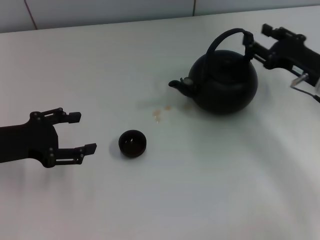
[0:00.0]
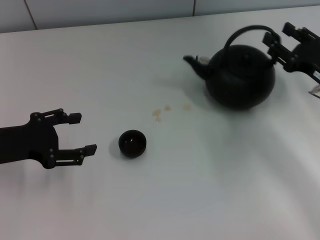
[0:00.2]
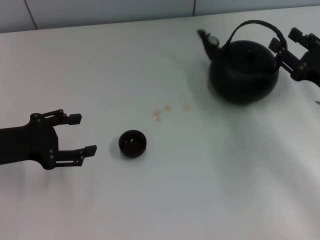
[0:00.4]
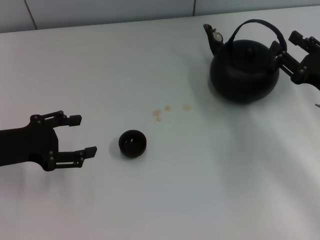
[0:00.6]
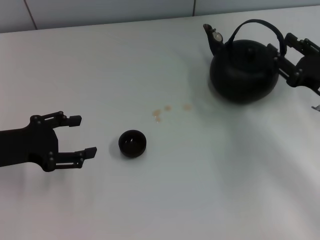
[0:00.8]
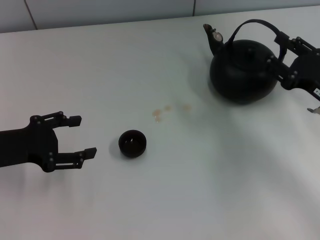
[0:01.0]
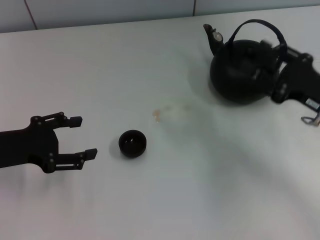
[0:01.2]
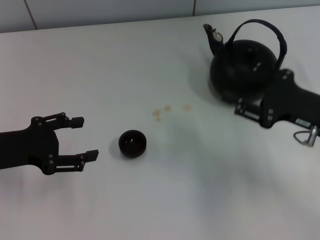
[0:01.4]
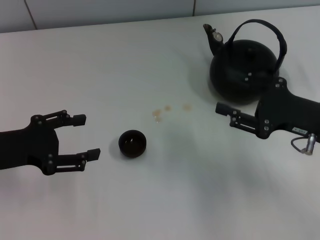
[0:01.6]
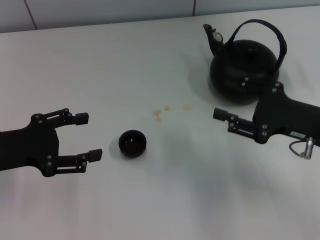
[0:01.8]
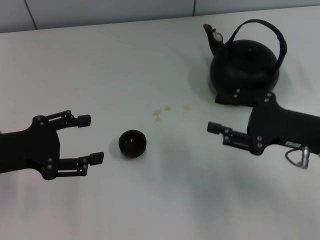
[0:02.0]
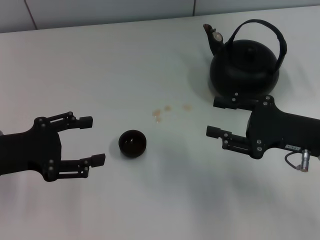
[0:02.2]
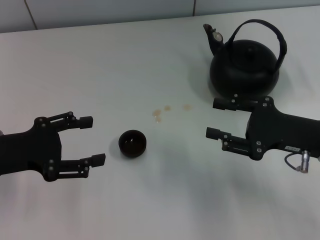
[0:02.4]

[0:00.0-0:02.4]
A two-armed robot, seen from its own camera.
Task of the whole recording: Grasp the handle of the teapot with one hand and pour tea into the teacup.
0:00.0 to 0:01.2: The right gripper is displaced backward by about 5 cm.

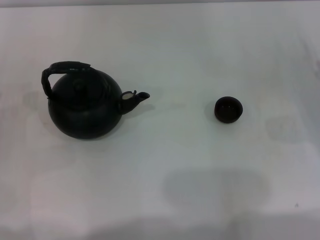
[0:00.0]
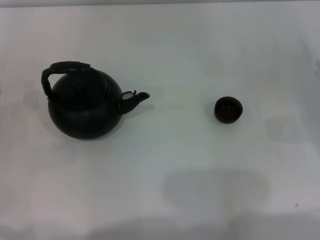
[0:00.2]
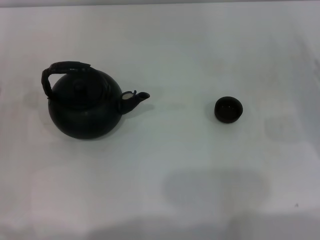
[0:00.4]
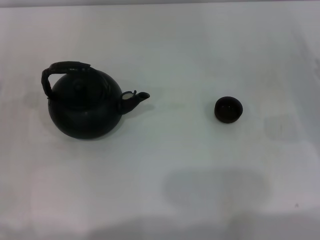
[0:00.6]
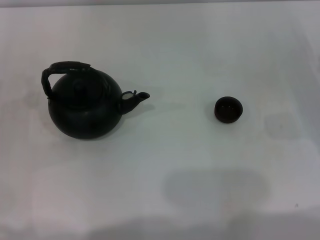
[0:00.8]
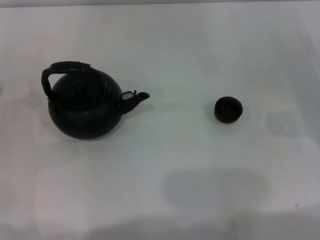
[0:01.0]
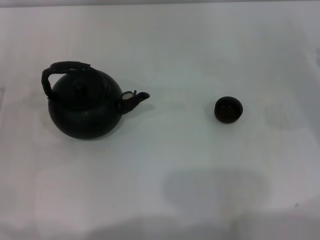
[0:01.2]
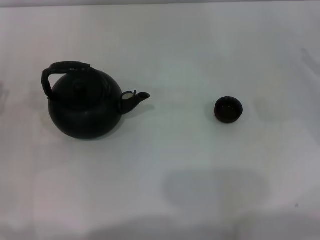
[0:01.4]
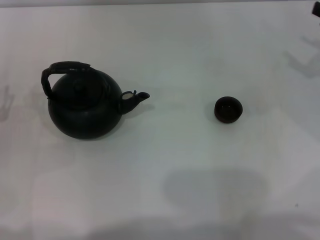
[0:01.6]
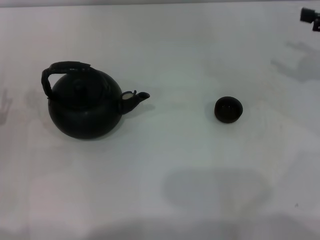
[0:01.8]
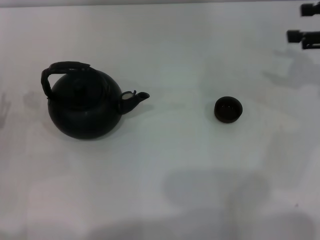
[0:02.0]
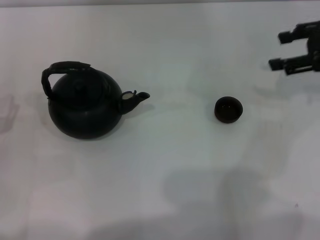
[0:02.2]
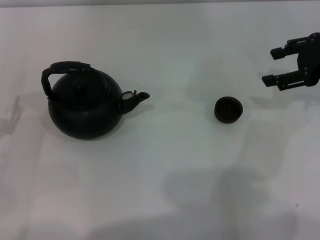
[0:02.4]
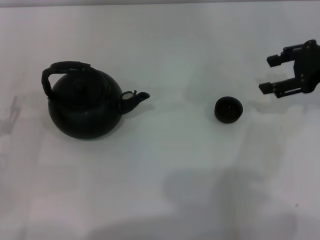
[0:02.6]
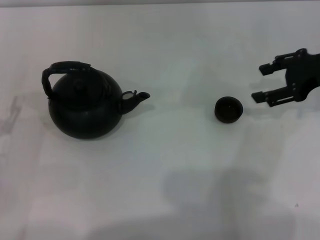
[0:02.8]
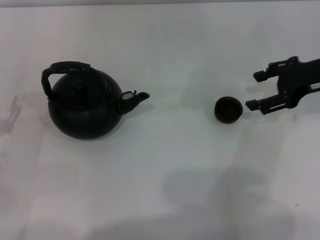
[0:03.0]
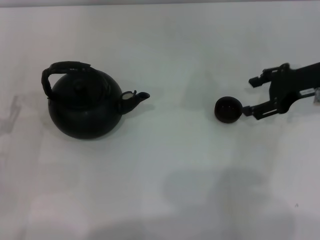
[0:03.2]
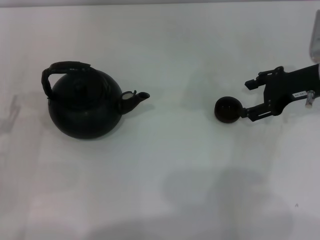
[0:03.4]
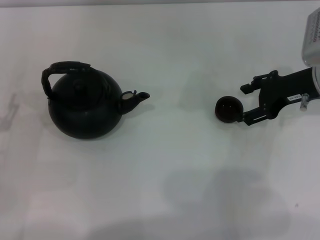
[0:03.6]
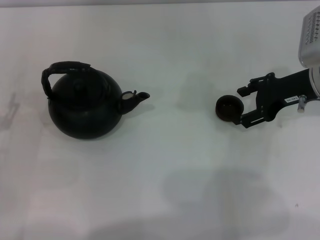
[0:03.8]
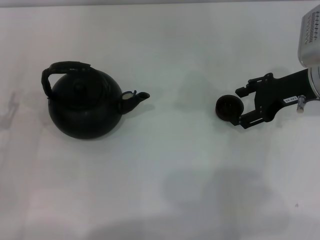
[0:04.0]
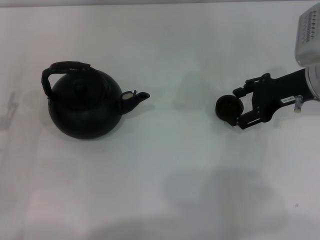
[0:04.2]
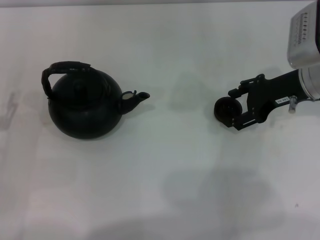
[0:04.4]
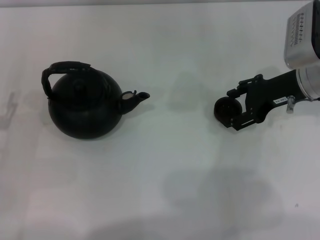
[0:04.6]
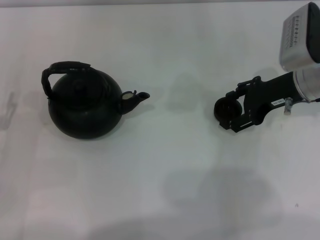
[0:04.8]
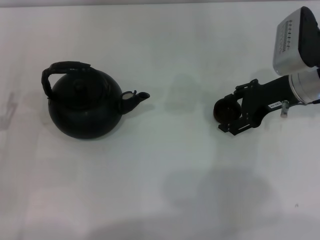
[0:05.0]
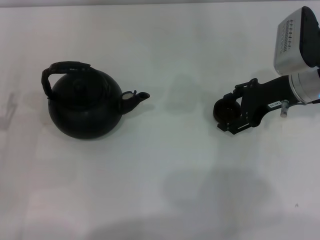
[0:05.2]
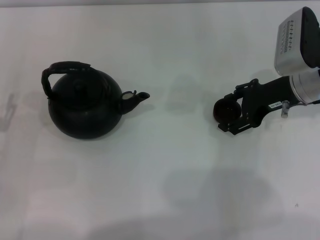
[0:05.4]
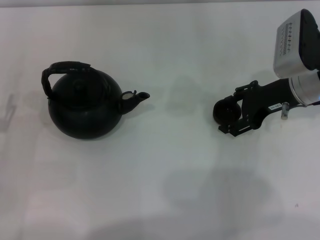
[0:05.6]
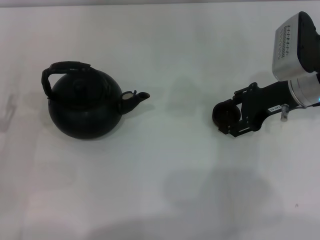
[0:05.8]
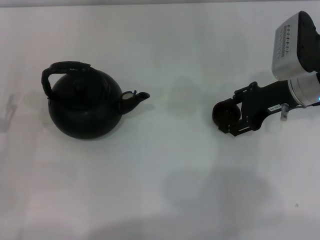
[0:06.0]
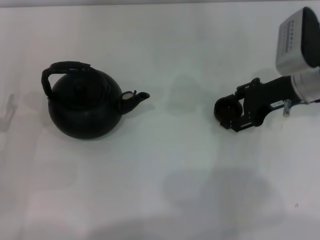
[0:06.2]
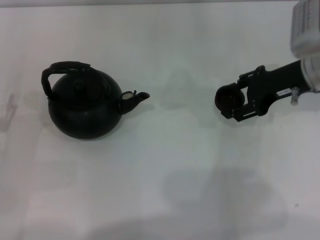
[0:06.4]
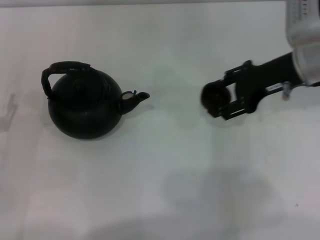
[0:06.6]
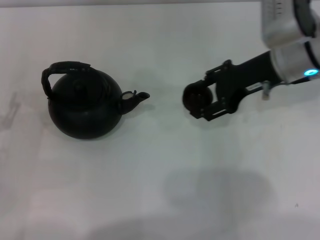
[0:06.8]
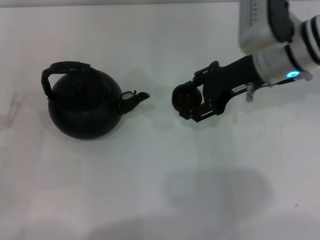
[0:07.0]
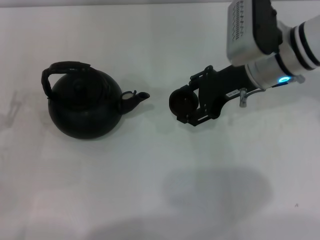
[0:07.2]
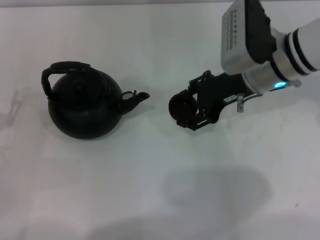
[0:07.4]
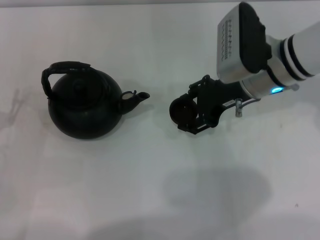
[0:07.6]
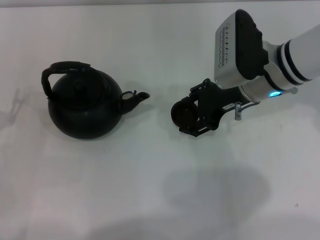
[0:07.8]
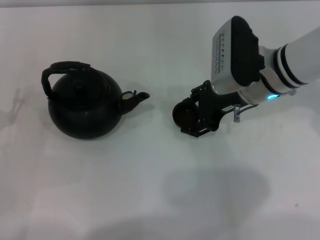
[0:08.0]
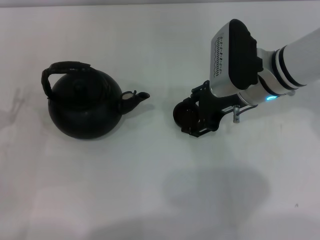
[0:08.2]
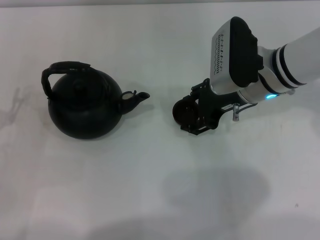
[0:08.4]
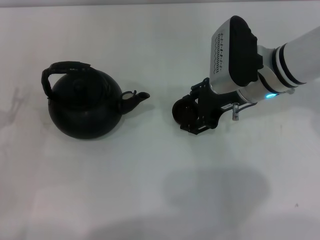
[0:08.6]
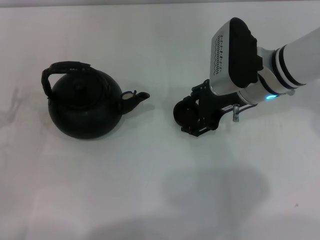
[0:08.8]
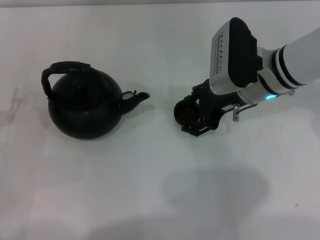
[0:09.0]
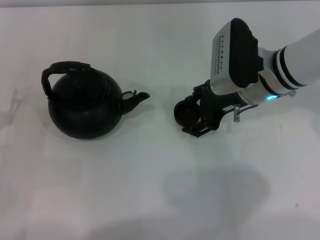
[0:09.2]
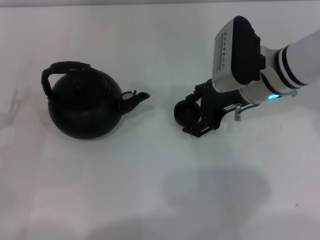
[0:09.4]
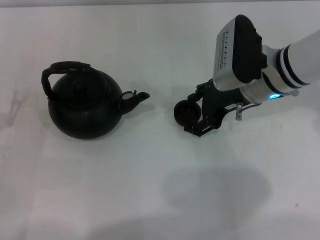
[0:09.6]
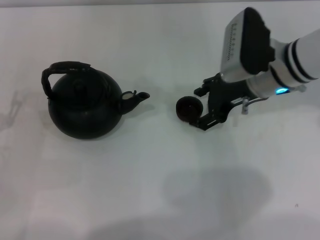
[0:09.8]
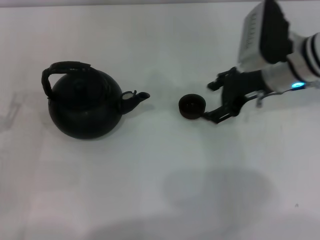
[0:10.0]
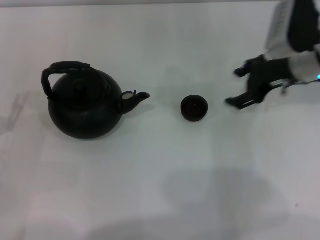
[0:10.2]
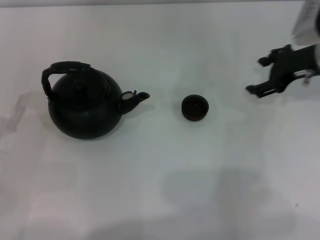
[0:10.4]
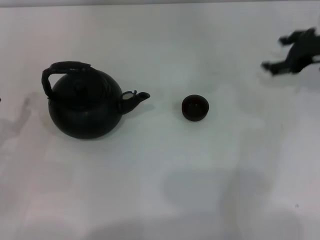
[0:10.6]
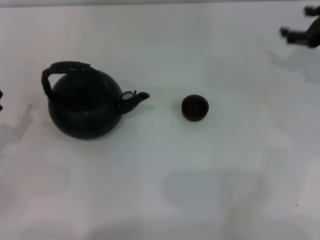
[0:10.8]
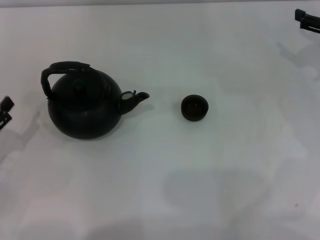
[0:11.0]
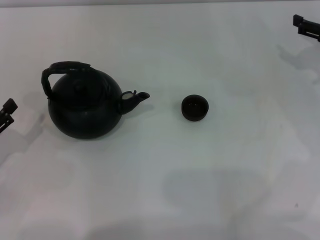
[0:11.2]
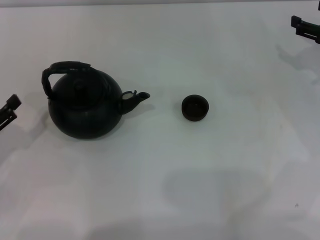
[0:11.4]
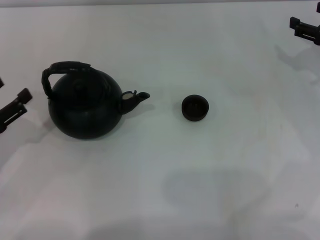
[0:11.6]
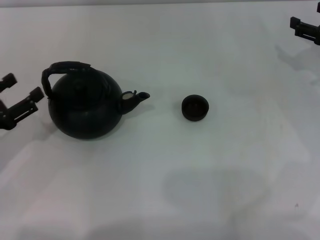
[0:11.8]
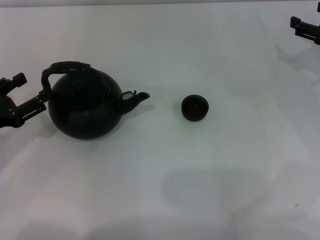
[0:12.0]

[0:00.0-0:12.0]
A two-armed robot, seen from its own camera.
Task of the whole recording: Grasp the handle of the teapot with one hand and pour tea into the teacup.
Step, 0:00.0 to 0:07.2: Pick up the teacup with the right gripper.
Step, 0:07.4 to 0:10.0: Place the teacup in the center of view with the right gripper.
0:01.6 to 0:03.0: The right gripper travels to the left by about 10 cm.
0:03.0 to 0:04.4: The right gripper ends up about 5 cm from where it was.
0:04.4 to 0:06.0: The grippers stay close to where they were, moving slightly.
0:06.0 to 0:07.6: The right gripper travels to the left by some 10 cm.
0:07.6 to 0:09.0: The grippers move only a little.
0:09.0 to 0:10.4: The right gripper moves to the right, about 10 cm.
0:10.4 to 0:12.0: The right gripper travels to the right by some 10 cm; the left gripper ends up approximately 5 cm from where it was.

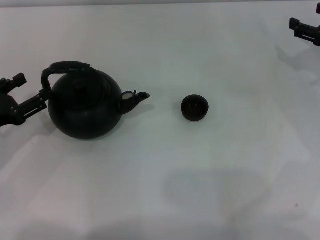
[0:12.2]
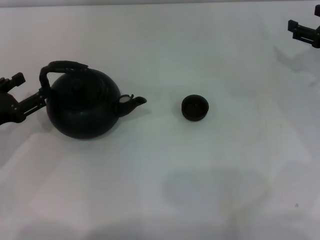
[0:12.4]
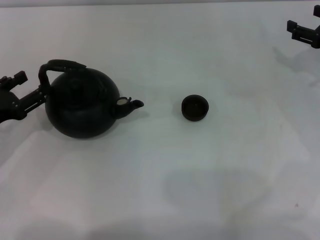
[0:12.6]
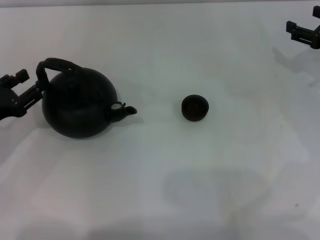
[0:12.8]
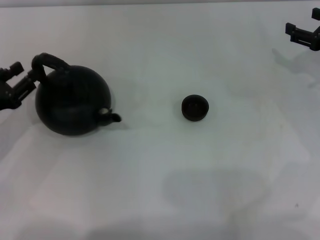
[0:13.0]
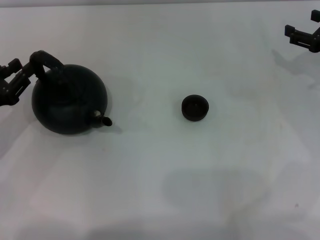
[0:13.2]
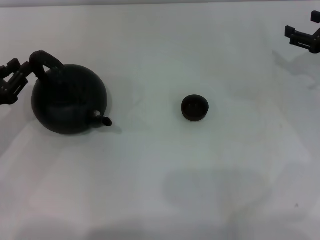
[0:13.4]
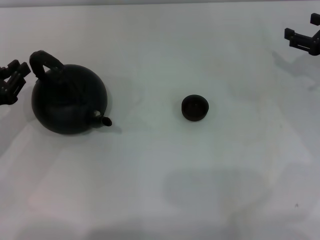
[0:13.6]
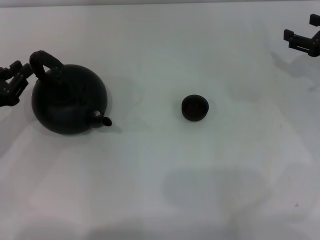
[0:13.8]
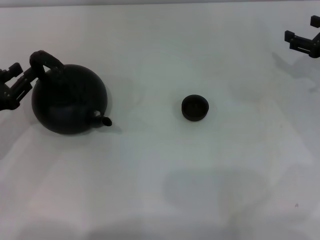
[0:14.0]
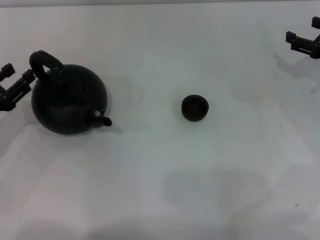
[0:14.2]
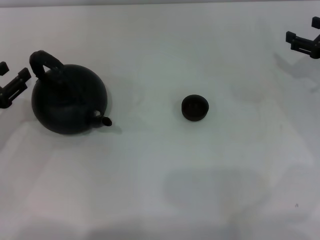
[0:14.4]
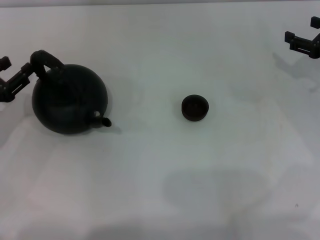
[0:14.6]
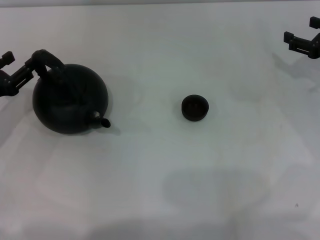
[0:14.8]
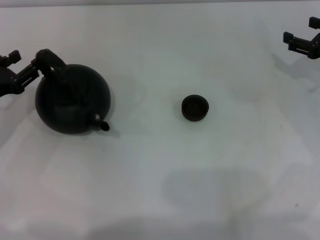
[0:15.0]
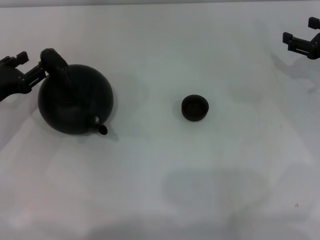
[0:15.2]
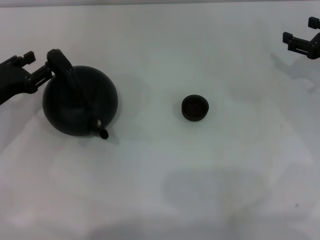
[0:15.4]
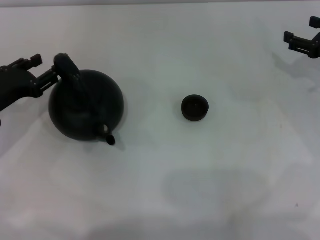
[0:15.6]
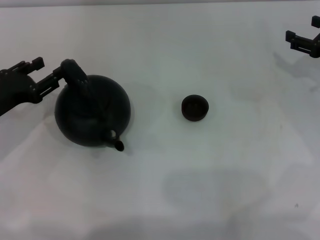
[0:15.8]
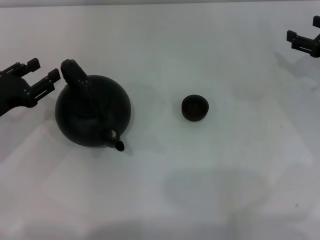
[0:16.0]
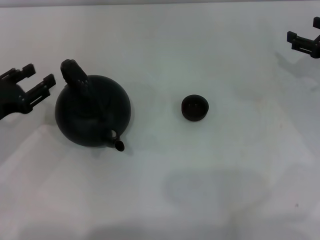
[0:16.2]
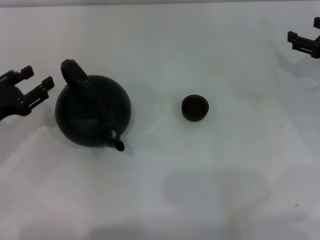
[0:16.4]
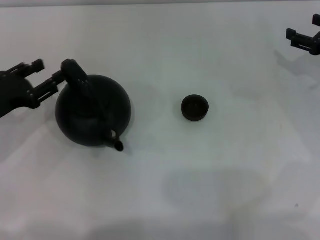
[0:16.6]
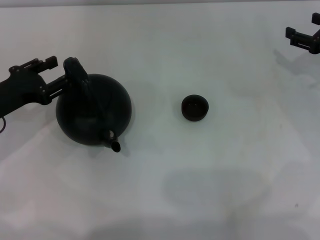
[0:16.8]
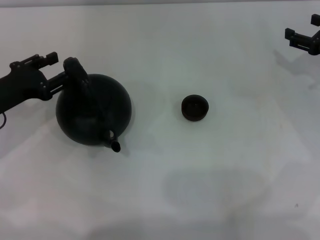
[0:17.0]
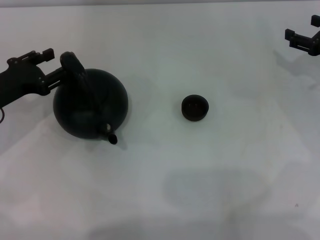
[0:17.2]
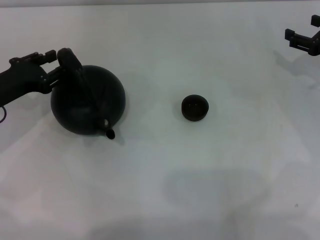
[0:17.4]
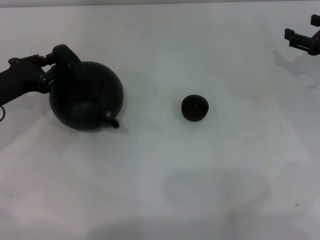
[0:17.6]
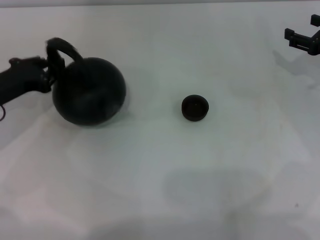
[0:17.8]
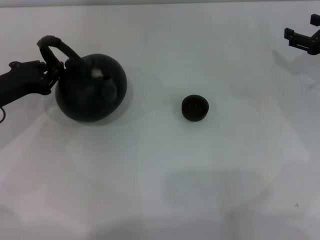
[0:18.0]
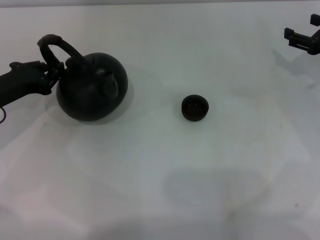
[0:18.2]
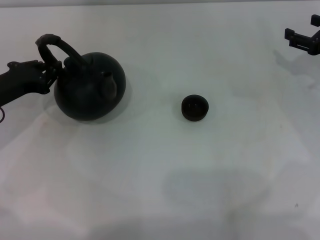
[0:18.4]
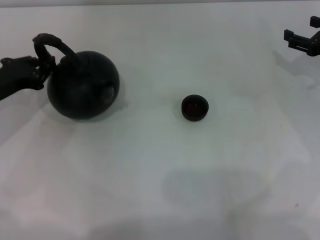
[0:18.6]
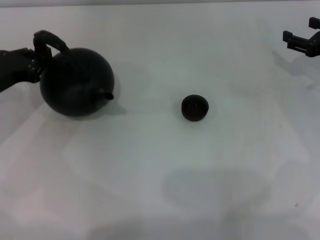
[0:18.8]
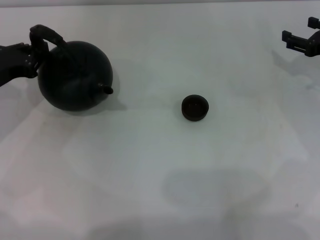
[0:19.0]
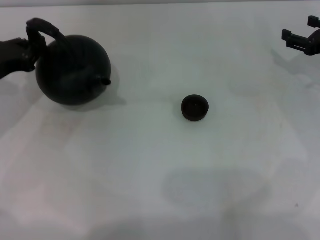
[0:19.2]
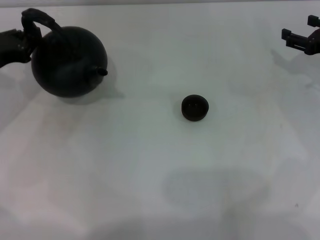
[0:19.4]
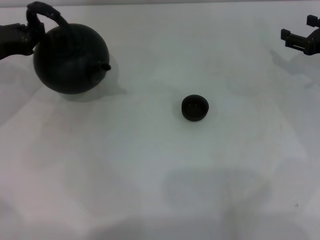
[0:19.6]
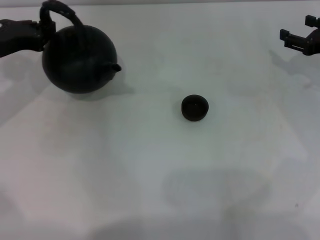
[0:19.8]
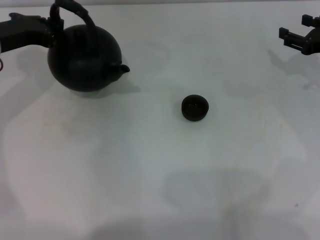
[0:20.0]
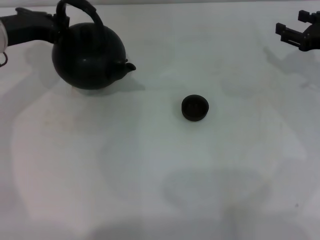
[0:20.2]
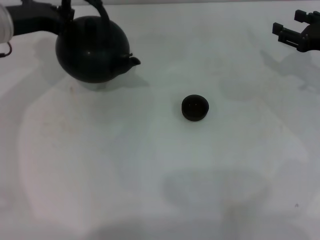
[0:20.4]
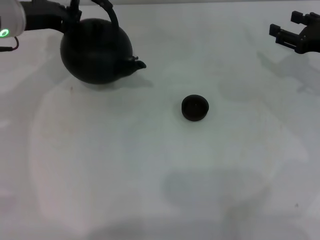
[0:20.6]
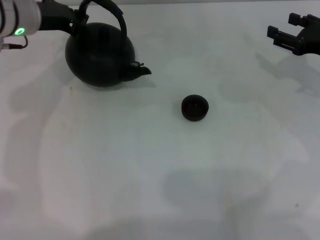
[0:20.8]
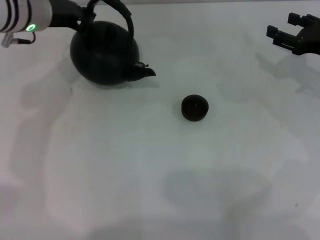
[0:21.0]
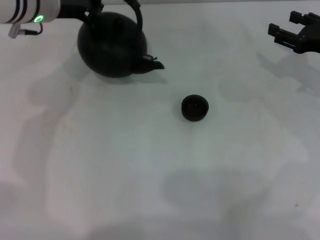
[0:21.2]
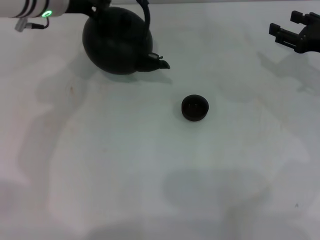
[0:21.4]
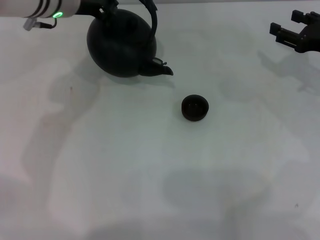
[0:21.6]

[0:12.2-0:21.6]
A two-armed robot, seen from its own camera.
Task of the whole recording: Grasp the handle of the teapot with one hand and pour tea into the teacup.
Step, 0:12.2 to 0:20.6: Pick up the teapot with the left gripper.
0:12.2 to 0:13.8: The left gripper closes up.
0:13.8 to 0:15.4: The left gripper opens.
0:15.4 to 0:17.0: The grippers stay close to where they were, moving slightly.
0:17.0 to 0:18.4: The left gripper closes.
0:18.4 to 0:20.0: The left gripper moves upward and forward, approximately 10 cm.
0:20.0 to 0:21.6: The left gripper is displaced to the right and upward by approximately 15 cm.
